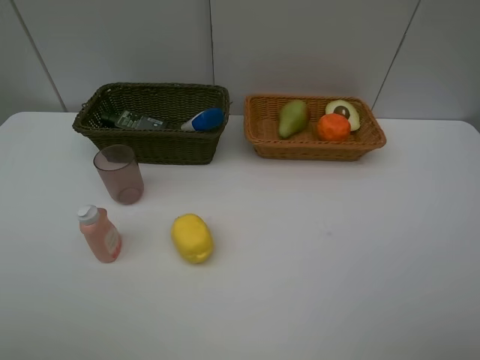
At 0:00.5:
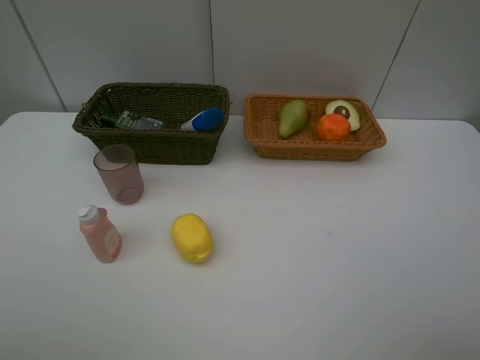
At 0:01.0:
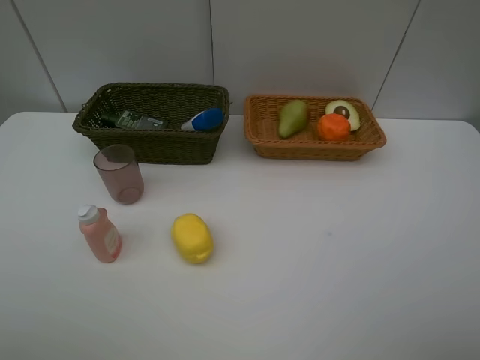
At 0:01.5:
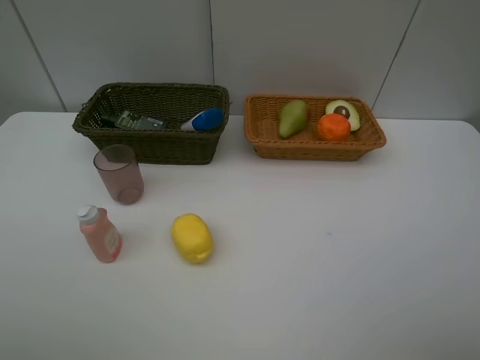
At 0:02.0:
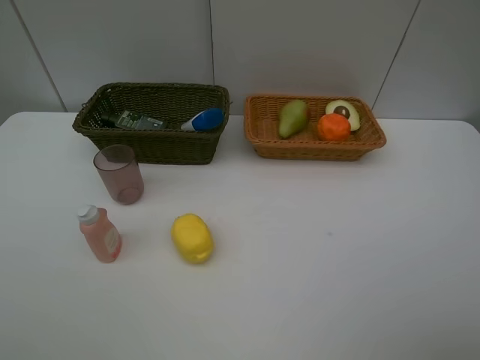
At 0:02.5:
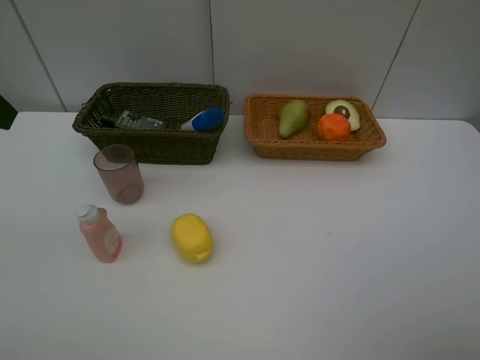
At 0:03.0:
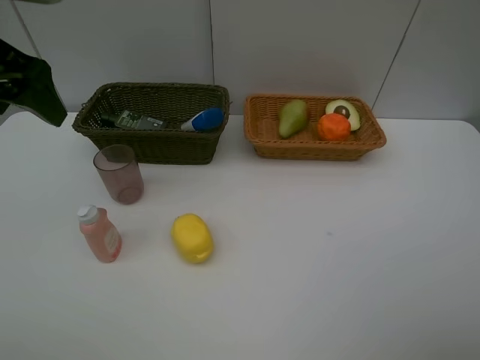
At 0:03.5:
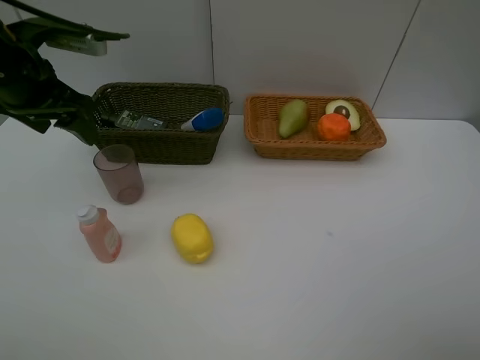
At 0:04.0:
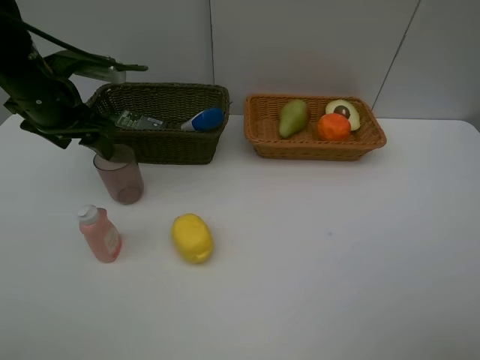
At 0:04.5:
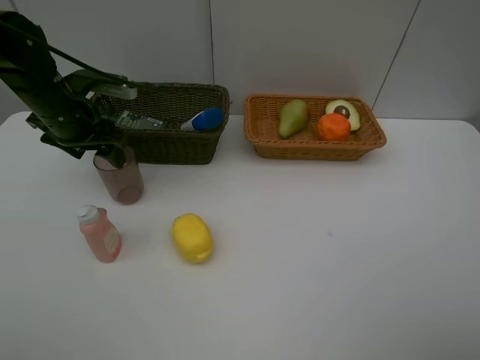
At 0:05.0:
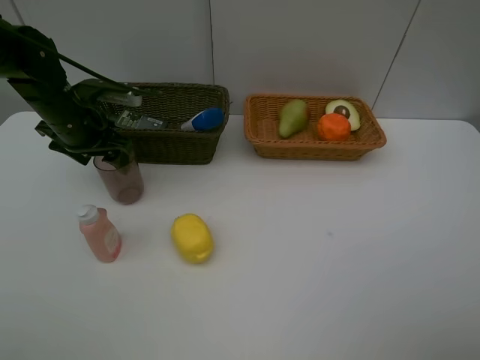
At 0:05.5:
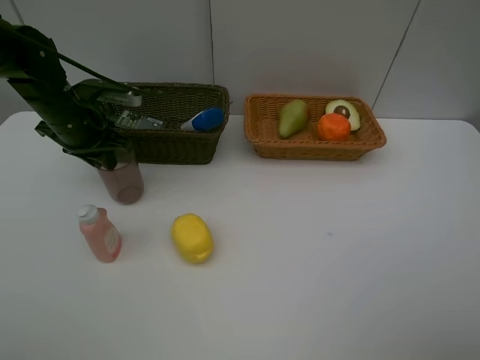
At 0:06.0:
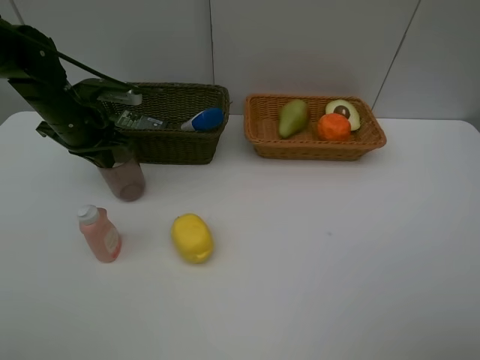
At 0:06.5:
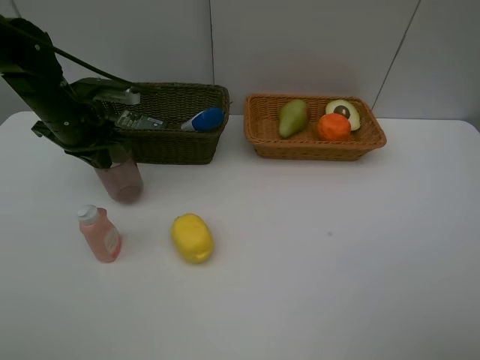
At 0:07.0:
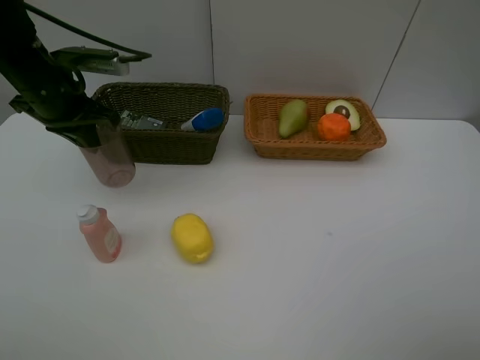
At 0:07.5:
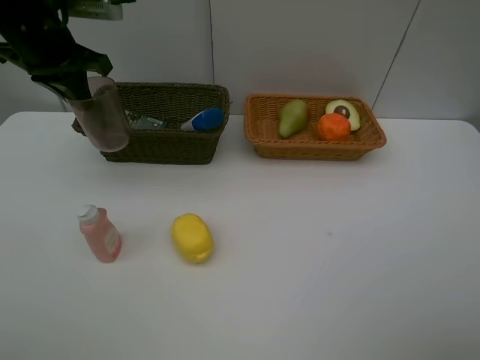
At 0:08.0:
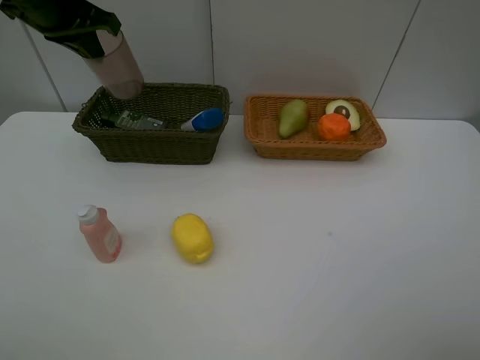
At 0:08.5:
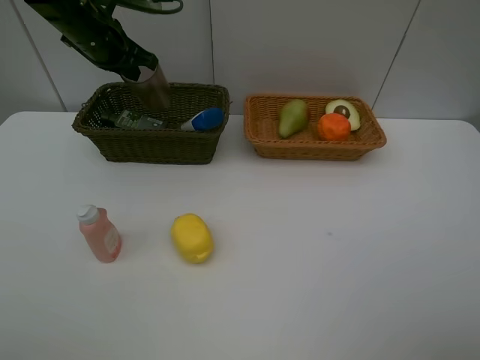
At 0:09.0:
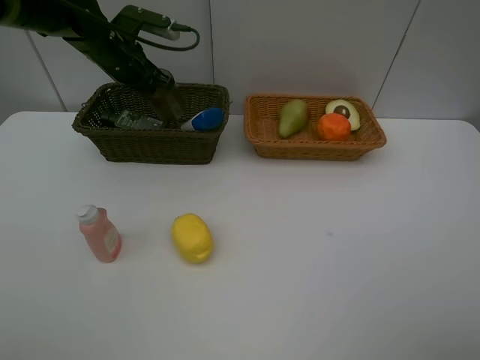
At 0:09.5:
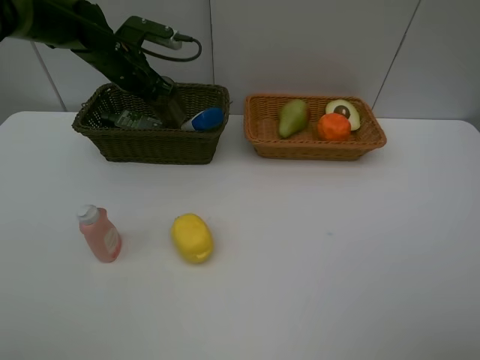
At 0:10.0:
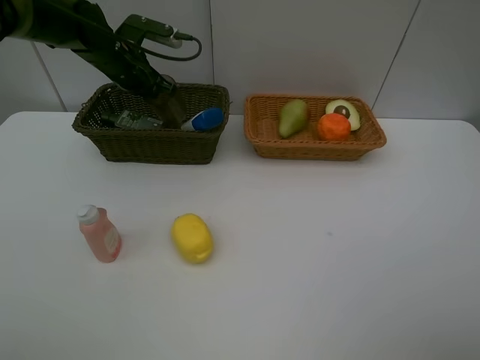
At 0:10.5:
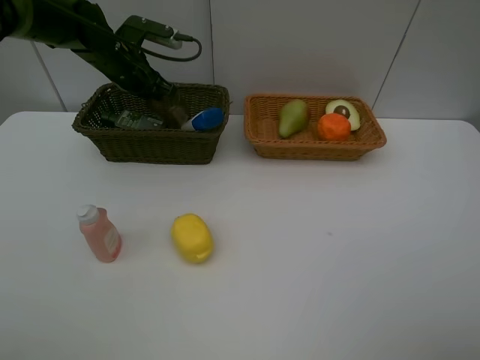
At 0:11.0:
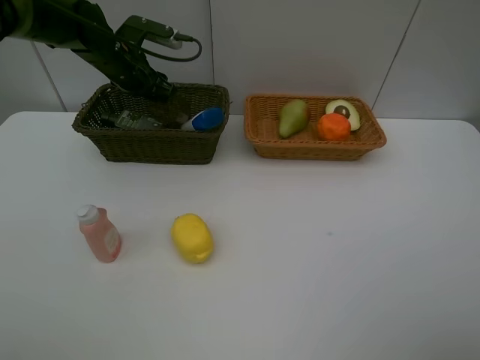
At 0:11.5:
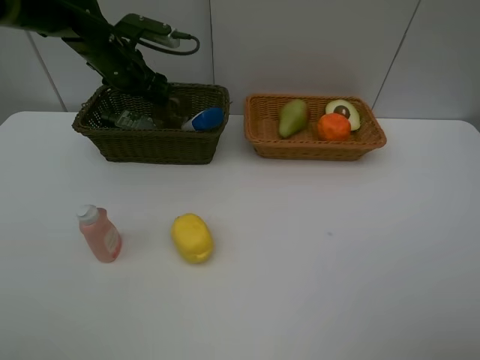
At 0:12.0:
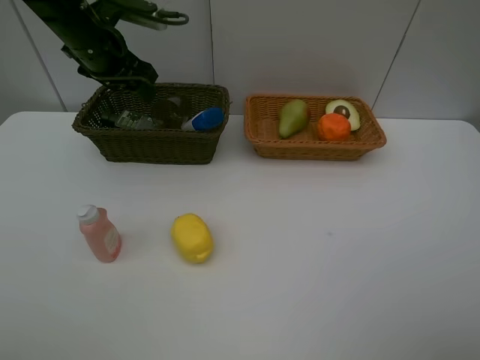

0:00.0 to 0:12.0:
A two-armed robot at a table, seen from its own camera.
Task of the whole recording: Place multiple objects separately in different baskets.
Step, 0:00.0 to 0:06.5: Pick up the red cup with left gripper.
Step, 0:07.0 to 0:11.5: Place the red cup in the dark basket with left gripper.
0:02.0 to 0:04.0: The left gripper travels forward and downward by approximately 30 cm.
0:04.0 to 0:06.0: The left gripper ends up some 5 cm from where it was, and closes.
0:06.0 to 0:08.0: The left gripper travels upward by roughly 15 cm.
0:08.0 to 0:10.0: The left gripper moves downward and forward, roughly 15 cm.
0:10.0 to 0:12.0: The left gripper is displaced upward and backward by roughly 10 cm, and opens up.

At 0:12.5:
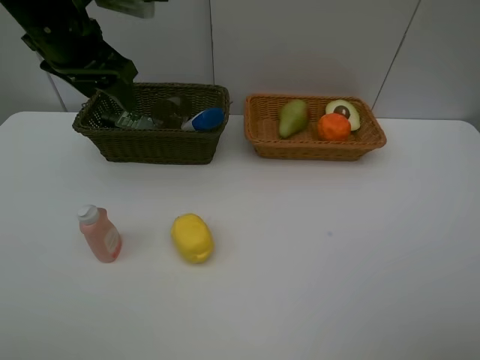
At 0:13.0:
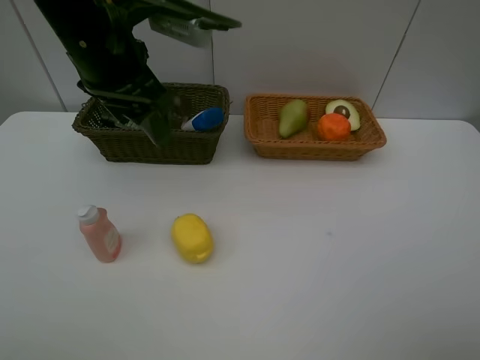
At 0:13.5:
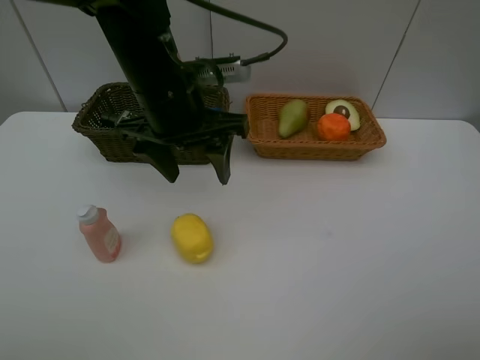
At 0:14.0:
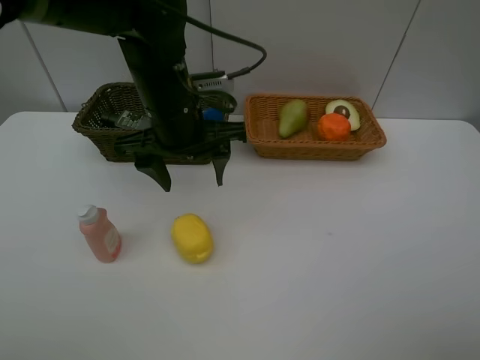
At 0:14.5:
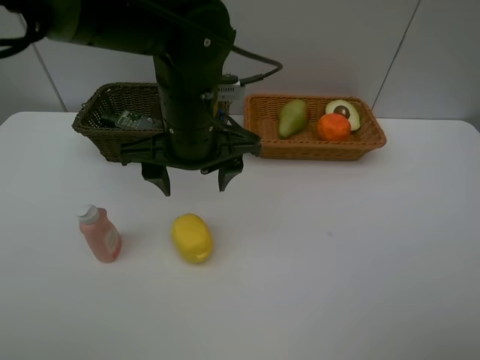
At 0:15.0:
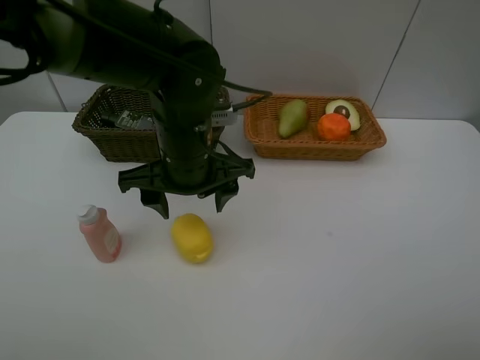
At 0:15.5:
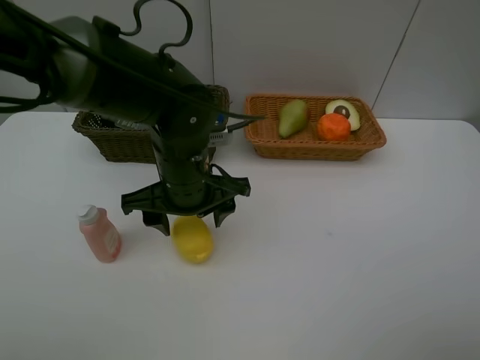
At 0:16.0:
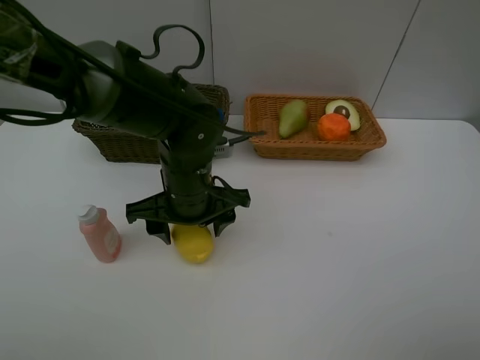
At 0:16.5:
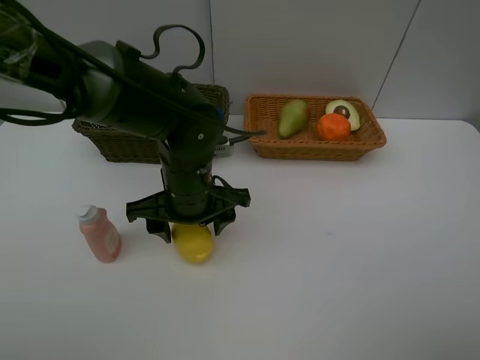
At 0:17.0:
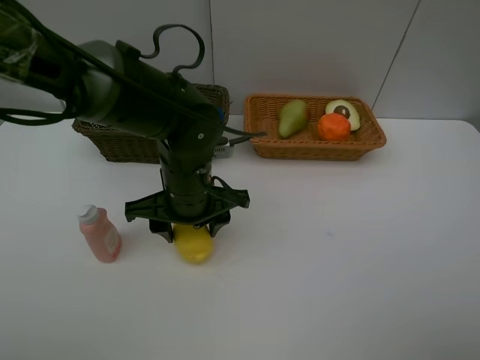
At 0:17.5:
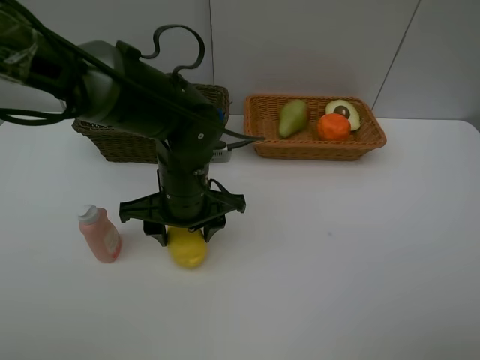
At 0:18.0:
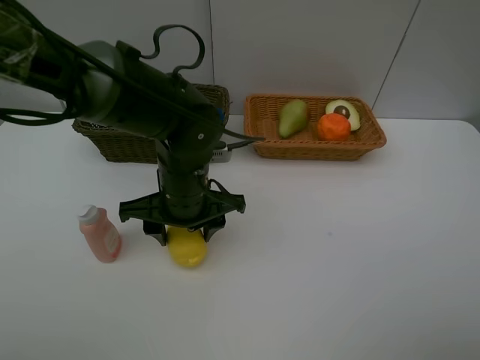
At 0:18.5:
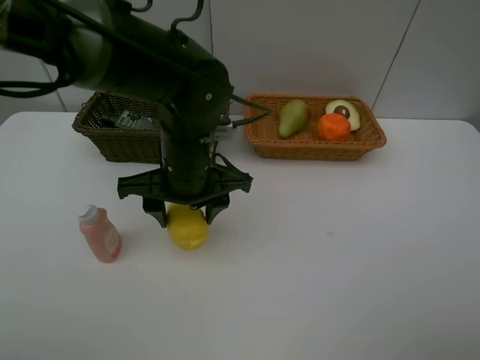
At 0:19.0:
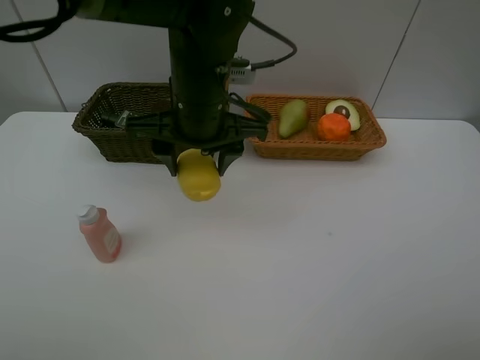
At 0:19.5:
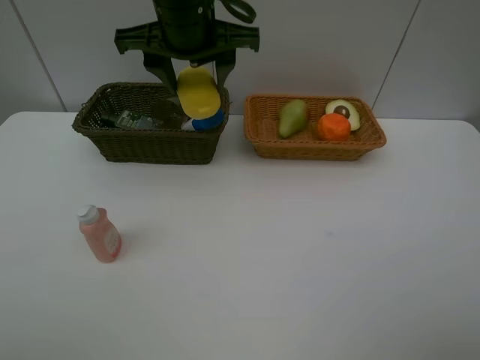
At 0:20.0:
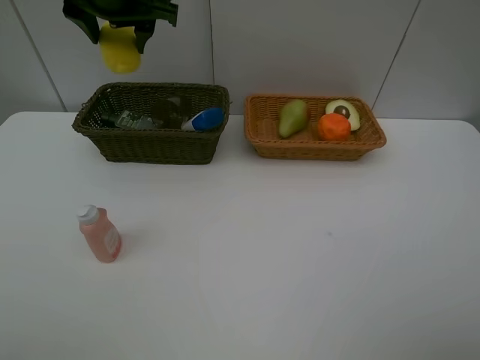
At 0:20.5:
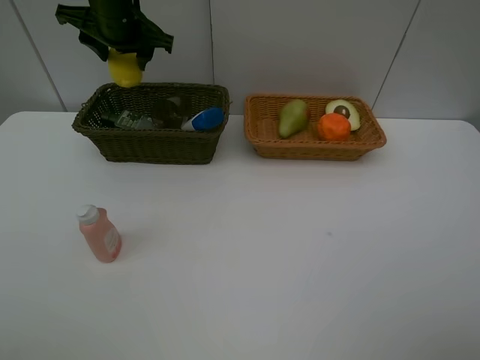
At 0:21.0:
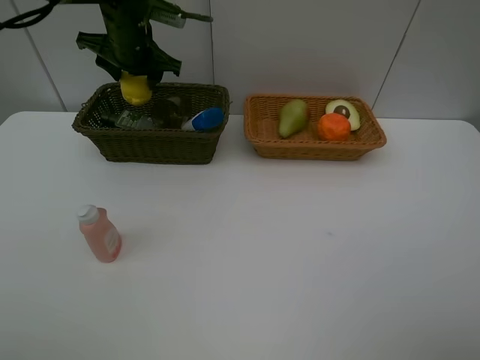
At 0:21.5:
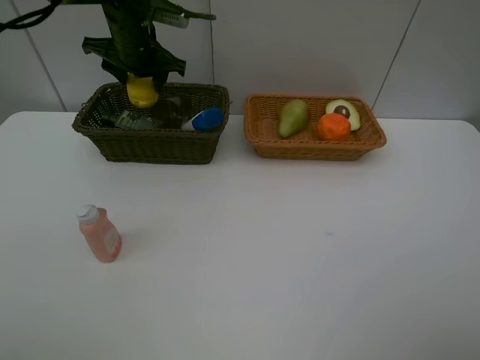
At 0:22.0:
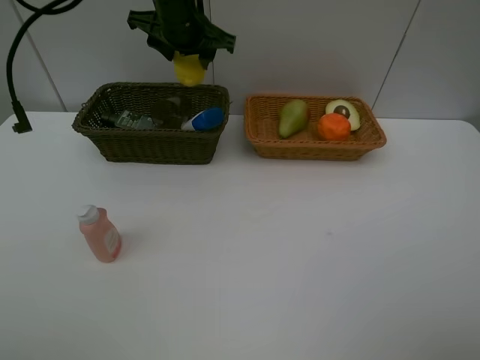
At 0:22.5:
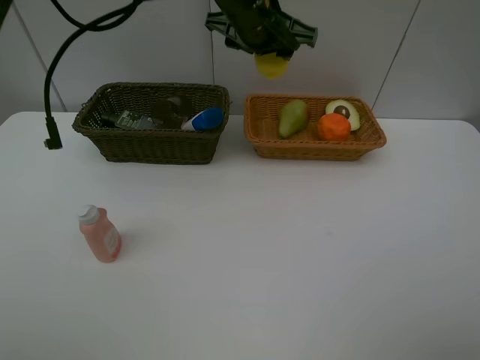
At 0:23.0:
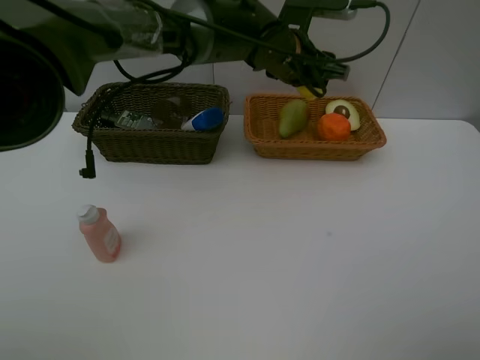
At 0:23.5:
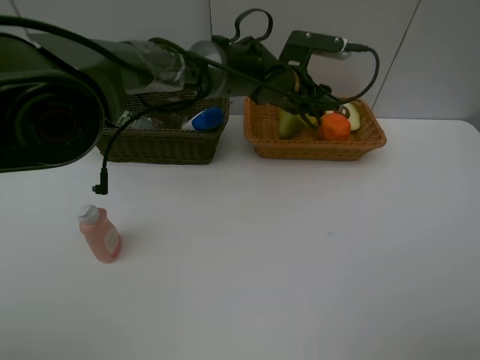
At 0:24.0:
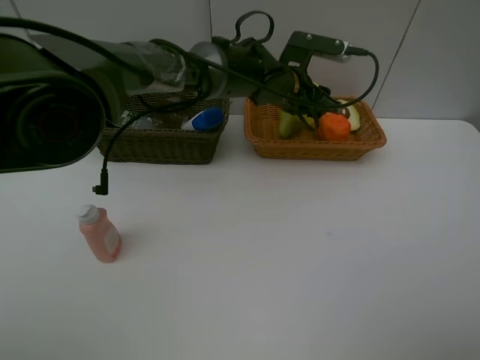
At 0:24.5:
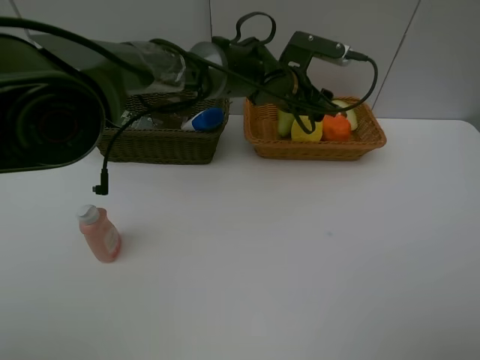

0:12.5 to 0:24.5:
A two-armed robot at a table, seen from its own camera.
Task of the whole recording: Place multiple objects separately in different baskets.
Step, 0:12.5 to 0:18.0: Pick up the lemon with left gripper.
0:12.5 to 0:14.5: The left gripper is displaced to the right, downward and backward by about 20 cm.
0:14.5 to 0:16.5: The left gripper moves downward, about 10 cm.
0:16.5 to 0:18.5: The grippers make only small movements.
0:18.5 to 0:20.5: The left gripper heads forward, to the left and upward, covering some 25 cm.
0:20.5 to 0:22.5: The left gripper is displaced to the right by about 20 cm.
0:22.5 to 0:24.5: The left gripper moves downward, roughly 10 cm.

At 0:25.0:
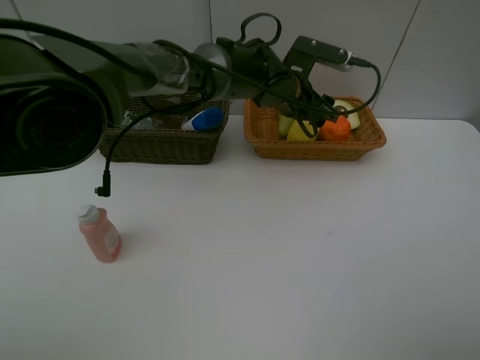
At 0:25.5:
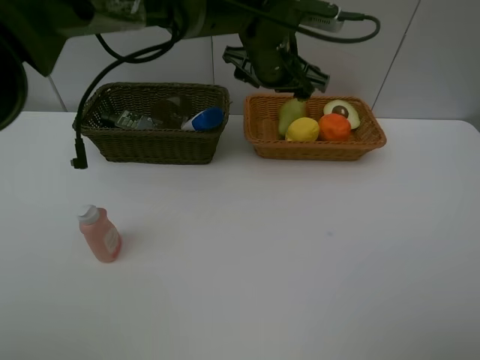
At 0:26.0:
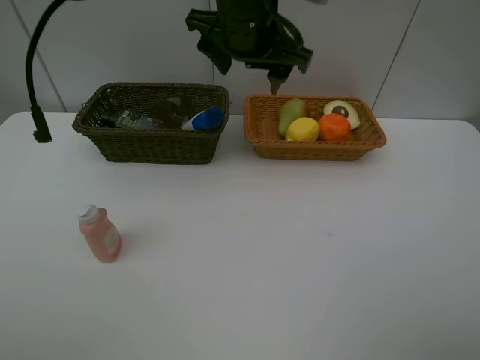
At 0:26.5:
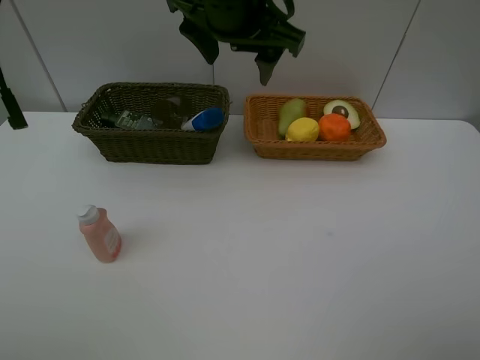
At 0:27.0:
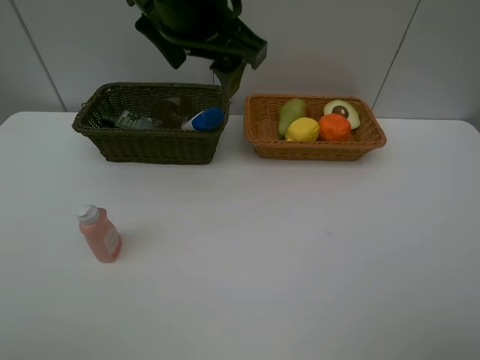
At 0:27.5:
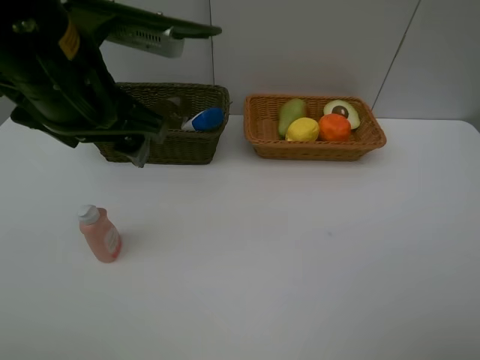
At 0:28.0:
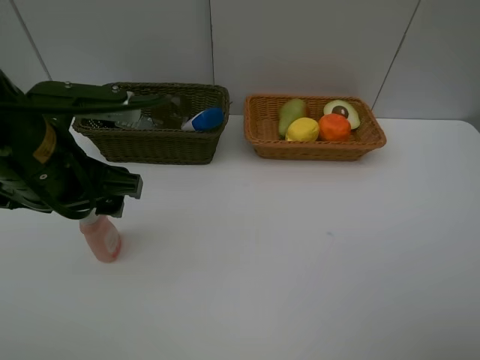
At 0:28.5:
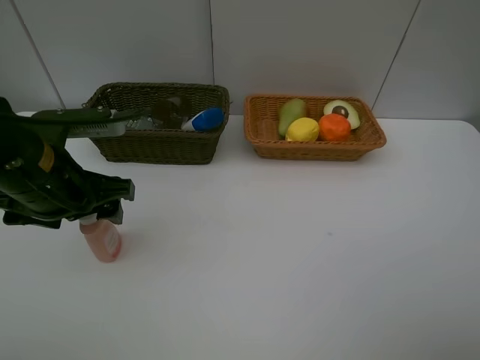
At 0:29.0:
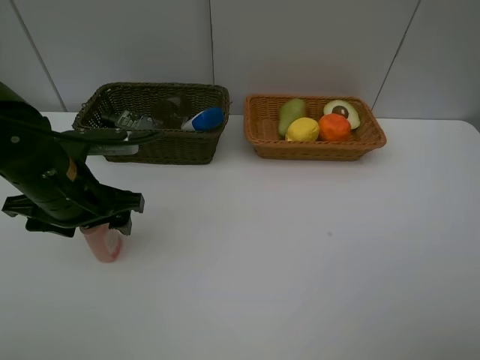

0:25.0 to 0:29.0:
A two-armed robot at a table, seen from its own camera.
Task of the whole recording: Place multiple objects separately in different baskets.
0:25.0 to 0:27.0: The left gripper shifts roughly 25 cm upward, backward and to the left.
0:27.0 to 0:29.0: The left gripper moves downward and to the left, roughly 25 cm.
